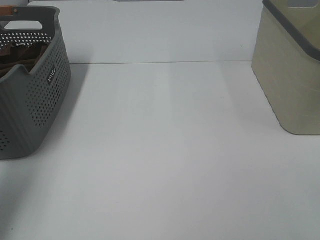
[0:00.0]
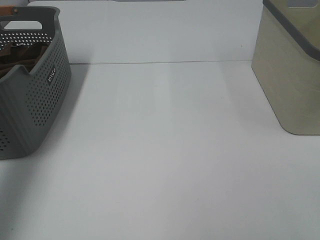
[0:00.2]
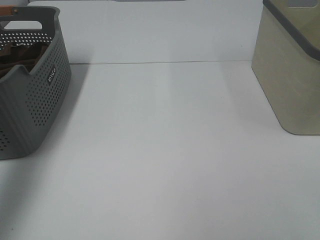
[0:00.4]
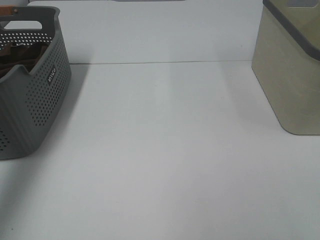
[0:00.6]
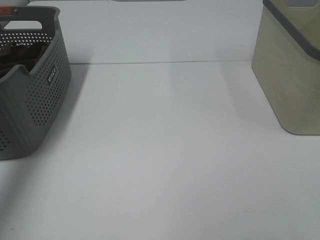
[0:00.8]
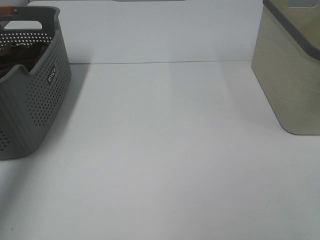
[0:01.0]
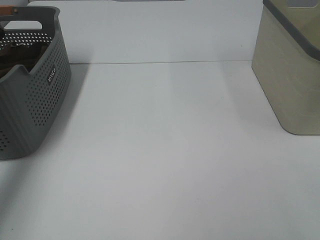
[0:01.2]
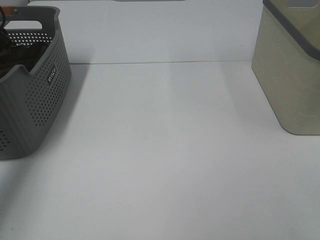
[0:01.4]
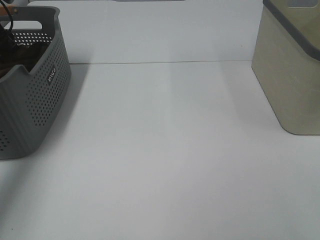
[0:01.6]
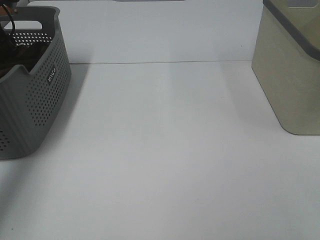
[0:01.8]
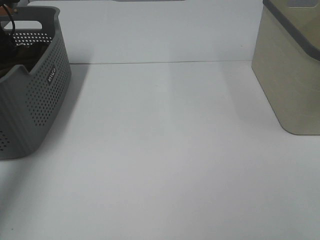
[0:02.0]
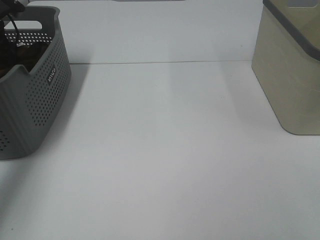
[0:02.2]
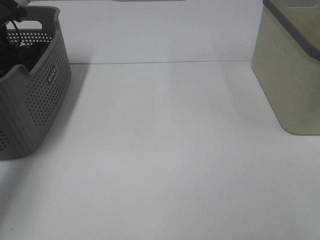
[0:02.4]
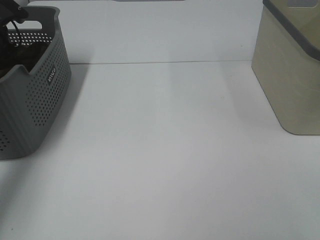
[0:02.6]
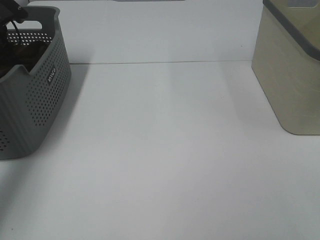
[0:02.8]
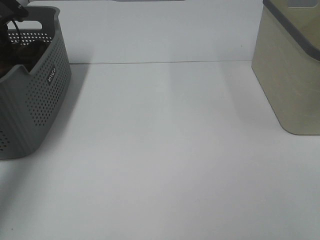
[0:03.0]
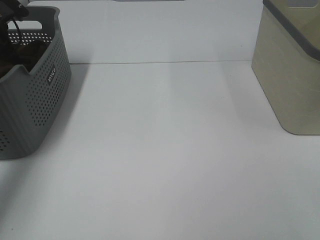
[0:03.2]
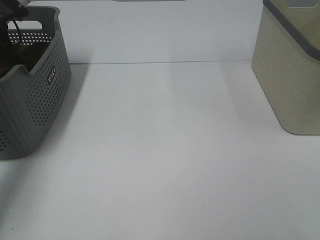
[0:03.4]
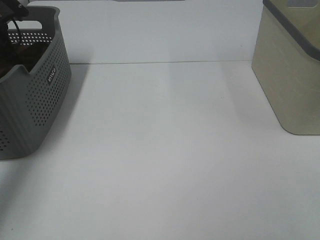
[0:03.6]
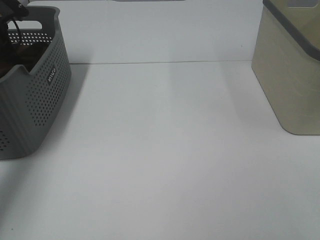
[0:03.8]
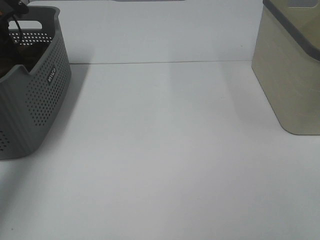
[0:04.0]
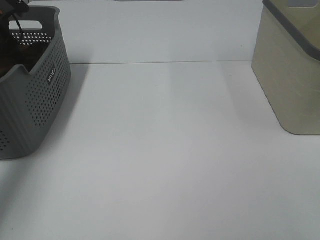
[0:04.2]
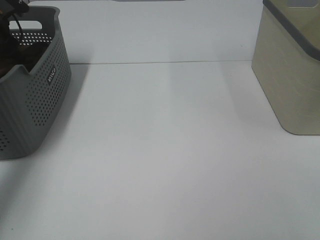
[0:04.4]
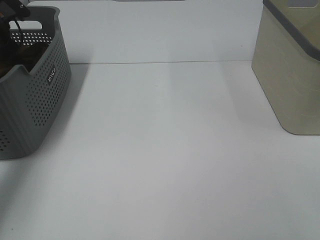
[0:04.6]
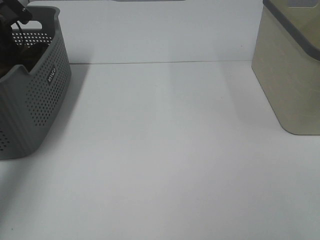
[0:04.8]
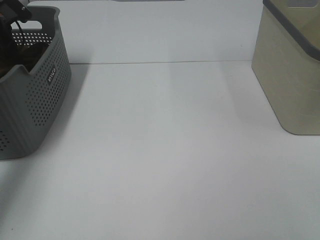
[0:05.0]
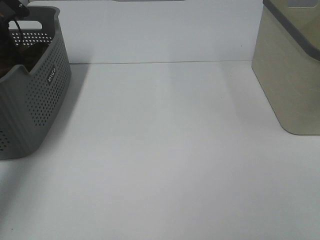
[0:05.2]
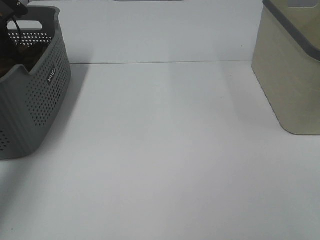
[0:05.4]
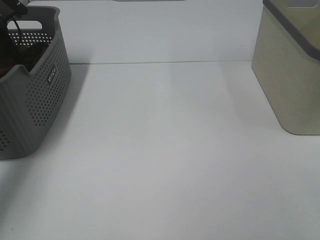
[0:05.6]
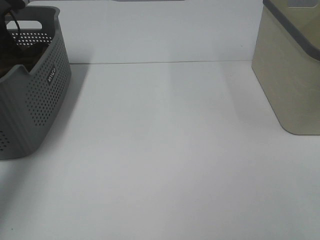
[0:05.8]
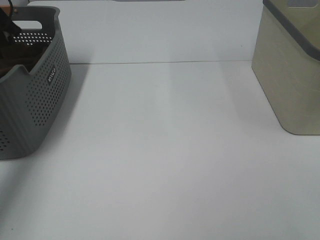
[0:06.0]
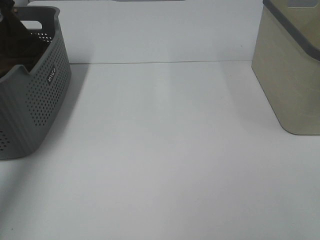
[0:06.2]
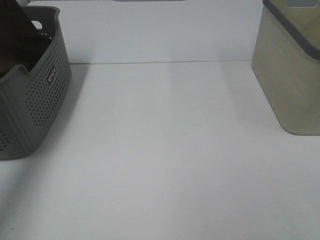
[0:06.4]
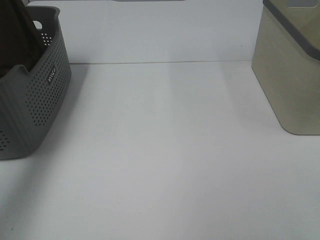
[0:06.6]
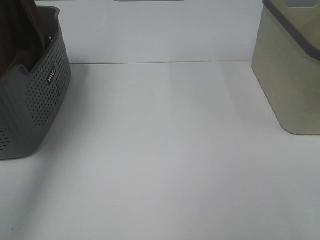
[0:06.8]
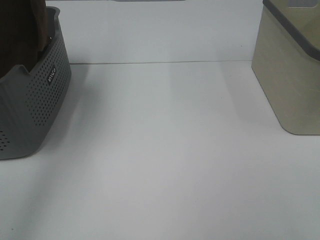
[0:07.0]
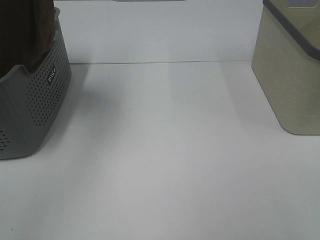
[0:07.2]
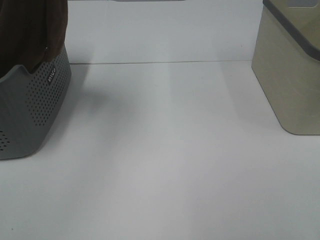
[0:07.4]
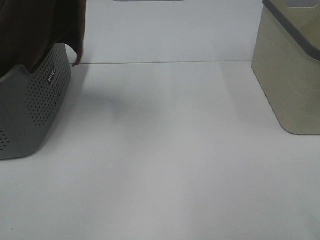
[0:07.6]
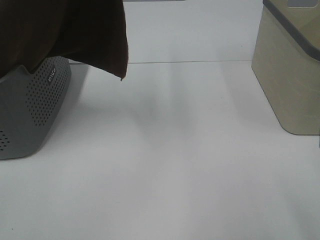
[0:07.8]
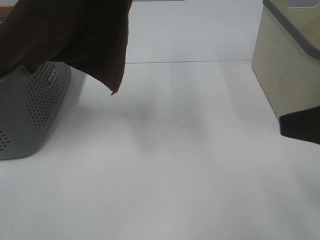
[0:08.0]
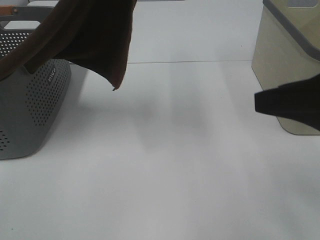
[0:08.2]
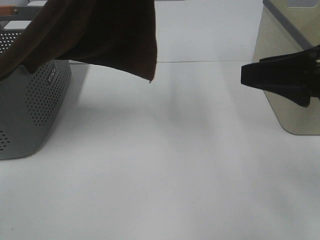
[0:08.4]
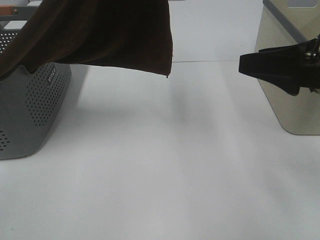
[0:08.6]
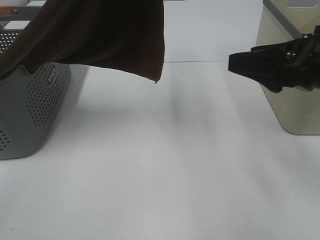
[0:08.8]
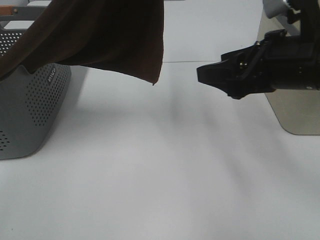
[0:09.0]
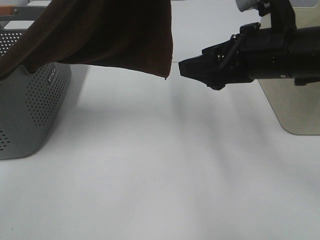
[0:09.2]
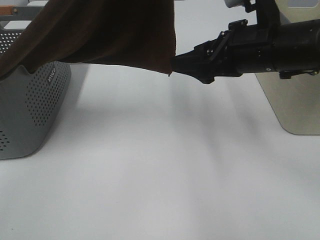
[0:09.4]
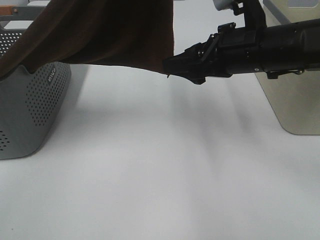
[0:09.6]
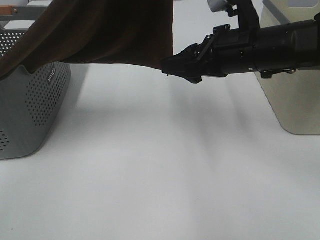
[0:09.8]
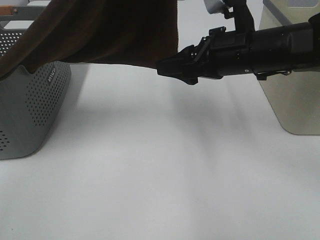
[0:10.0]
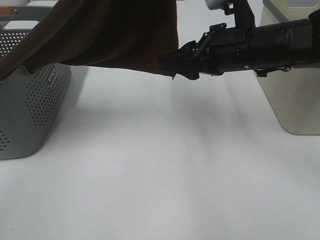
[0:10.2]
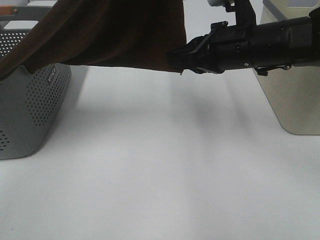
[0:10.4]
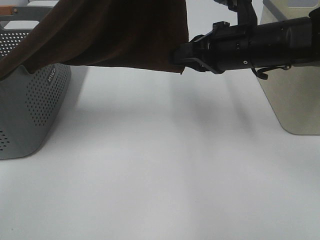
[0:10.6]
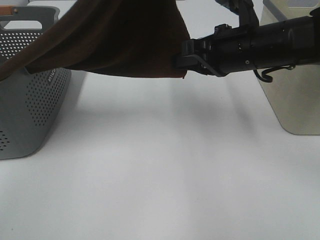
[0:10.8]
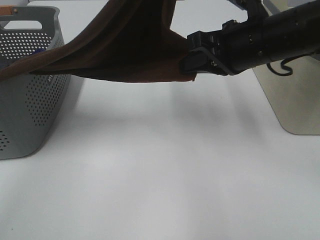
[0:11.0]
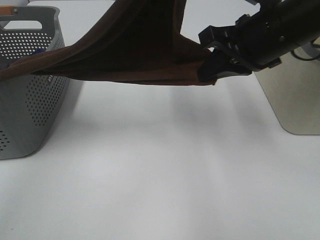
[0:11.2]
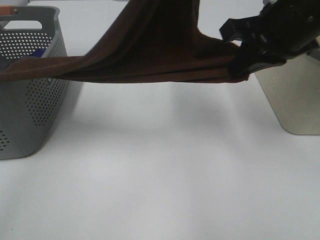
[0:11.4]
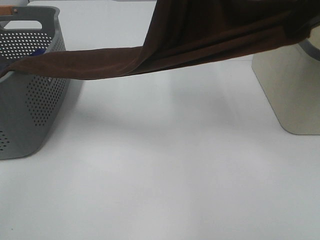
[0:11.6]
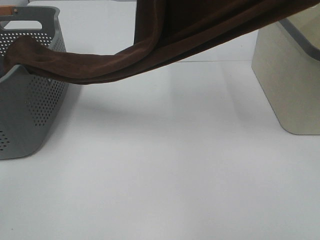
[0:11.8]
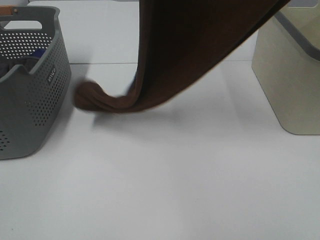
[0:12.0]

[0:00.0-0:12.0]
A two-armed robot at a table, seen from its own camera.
Task of the whole recording: Remove the towel and place it.
Step, 0:05.8 to 0:09.0: Right hand: grab a corner of the brown towel and straighten it.
0:00.0 to 0:01.6: The left gripper shifts some 30 cm forward.
0:03.0 to 0:04.4: Both grippers stay about where they are.
0:06.0 to 0:07.6: The left gripper shifts roughly 35 cm upward, to the right and backward.
0:07.6 to 0:09.0: The left gripper is displaced to the right by about 10 cm, while the right gripper is displaced forward and to the left by some 25 cm.
0:09.0 to 0:10.4: The right gripper is displaced forward by approximately 5 cm, and closes up.
0:10.4 to 0:12.0: The left gripper heads upward, covering approximately 5 cm. The right gripper travels upward by some 25 cm.

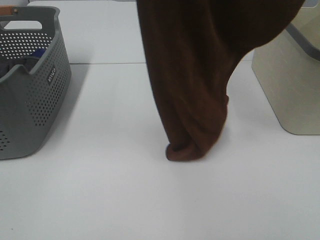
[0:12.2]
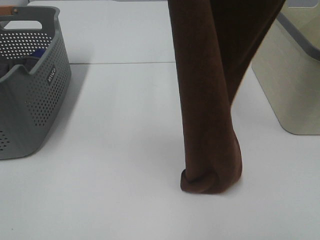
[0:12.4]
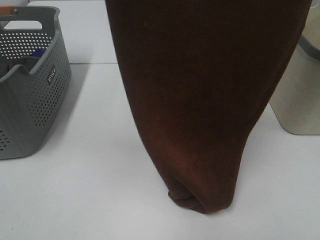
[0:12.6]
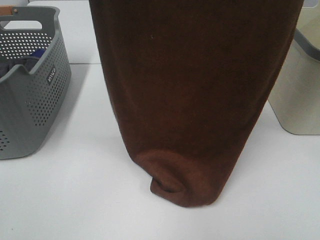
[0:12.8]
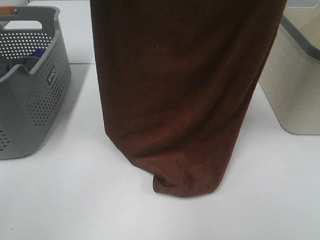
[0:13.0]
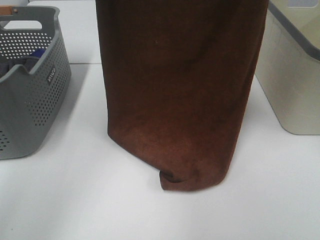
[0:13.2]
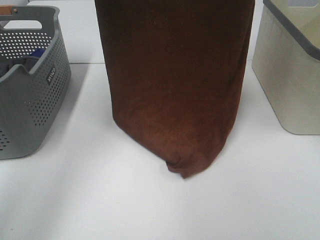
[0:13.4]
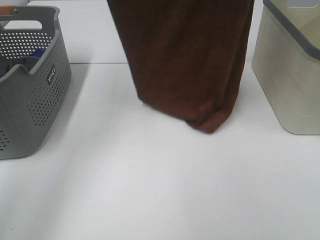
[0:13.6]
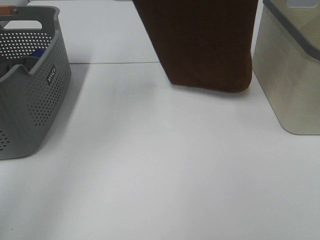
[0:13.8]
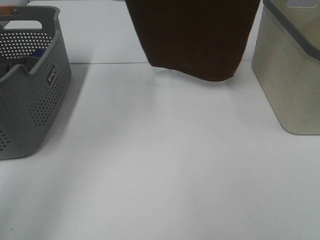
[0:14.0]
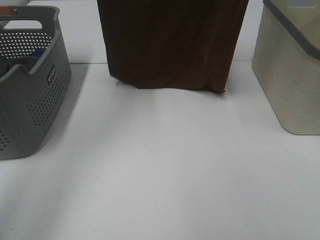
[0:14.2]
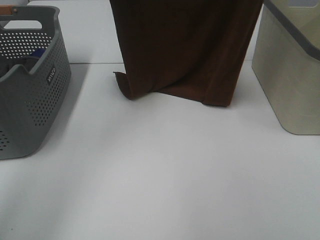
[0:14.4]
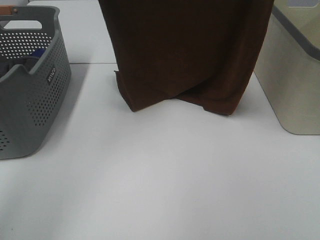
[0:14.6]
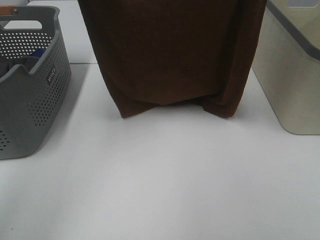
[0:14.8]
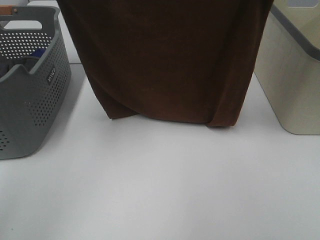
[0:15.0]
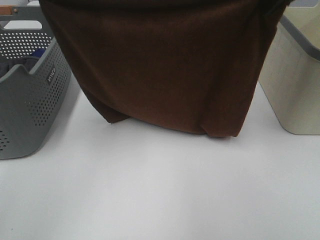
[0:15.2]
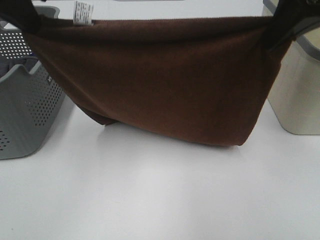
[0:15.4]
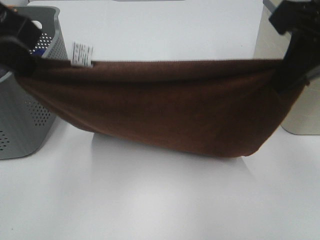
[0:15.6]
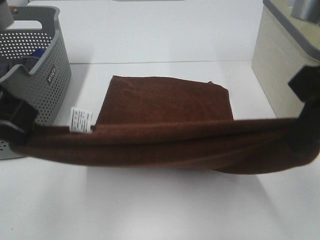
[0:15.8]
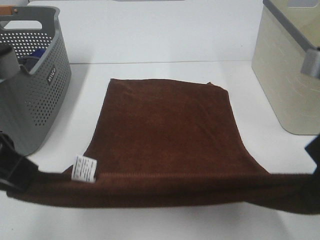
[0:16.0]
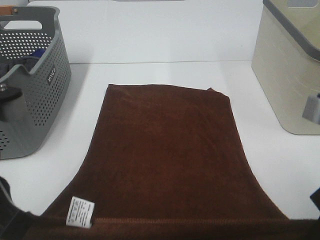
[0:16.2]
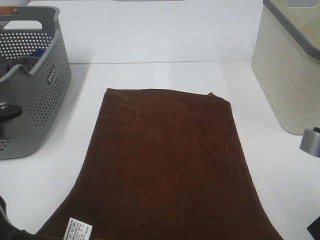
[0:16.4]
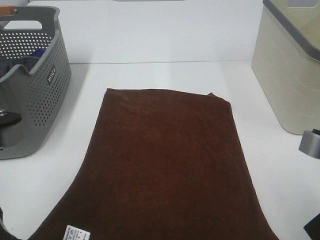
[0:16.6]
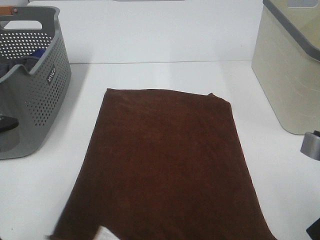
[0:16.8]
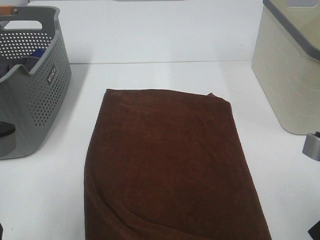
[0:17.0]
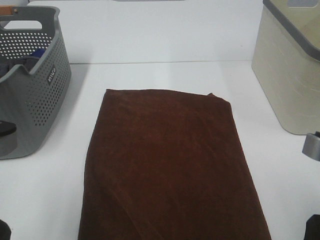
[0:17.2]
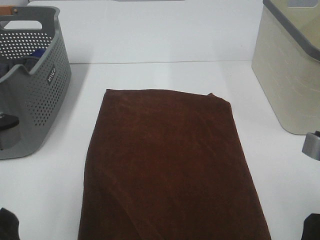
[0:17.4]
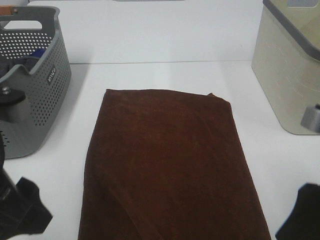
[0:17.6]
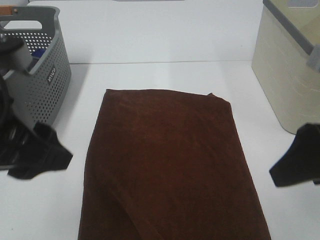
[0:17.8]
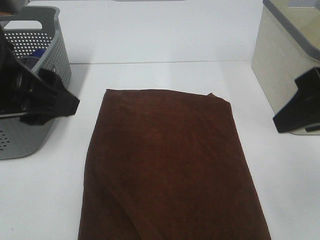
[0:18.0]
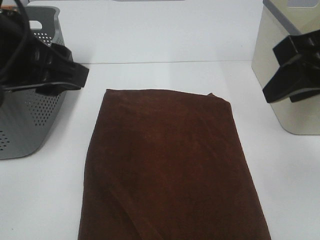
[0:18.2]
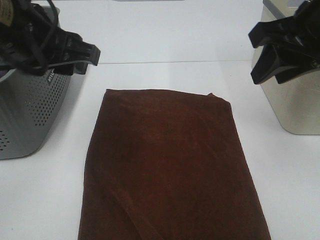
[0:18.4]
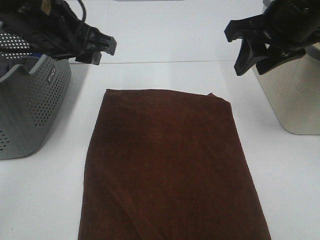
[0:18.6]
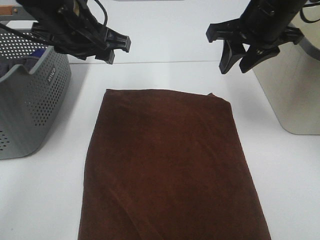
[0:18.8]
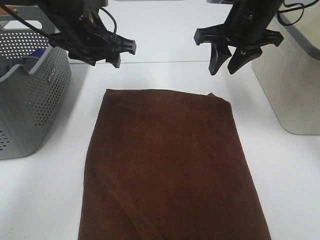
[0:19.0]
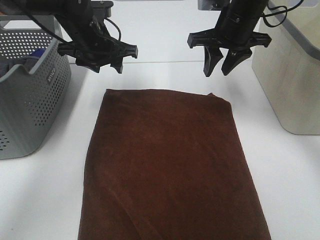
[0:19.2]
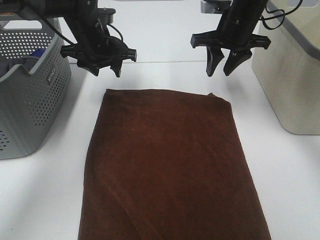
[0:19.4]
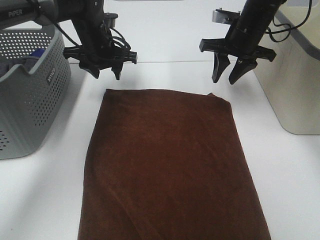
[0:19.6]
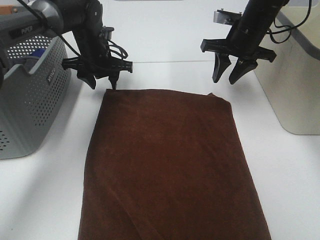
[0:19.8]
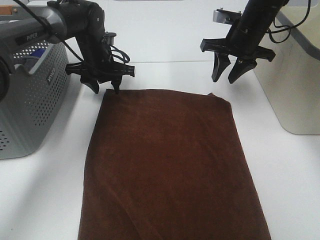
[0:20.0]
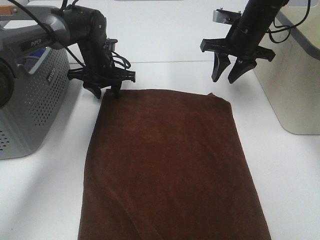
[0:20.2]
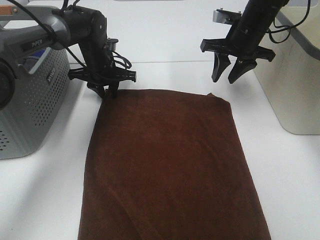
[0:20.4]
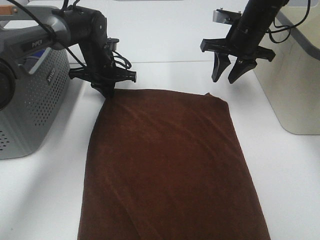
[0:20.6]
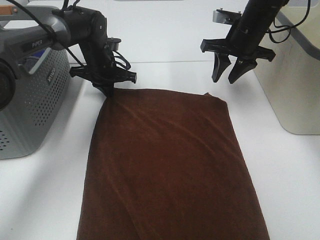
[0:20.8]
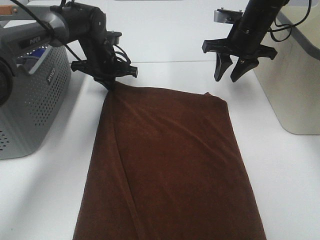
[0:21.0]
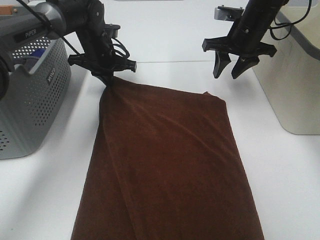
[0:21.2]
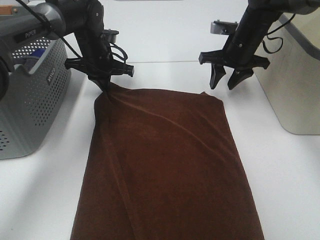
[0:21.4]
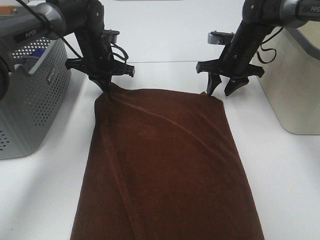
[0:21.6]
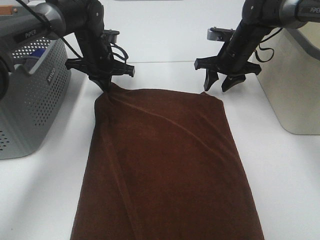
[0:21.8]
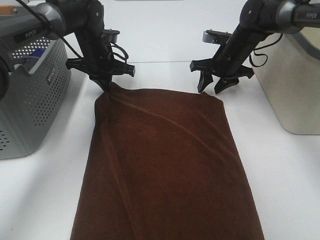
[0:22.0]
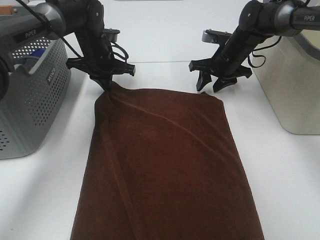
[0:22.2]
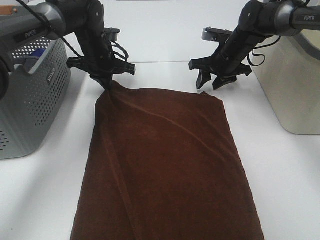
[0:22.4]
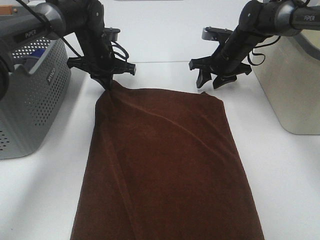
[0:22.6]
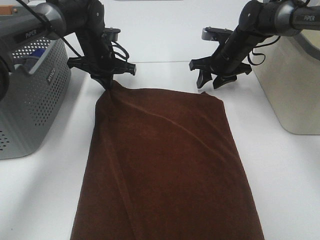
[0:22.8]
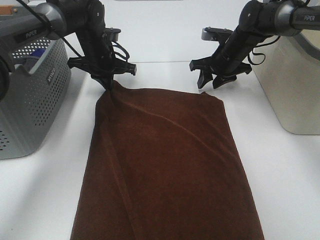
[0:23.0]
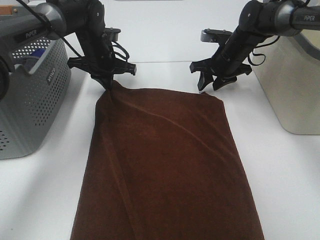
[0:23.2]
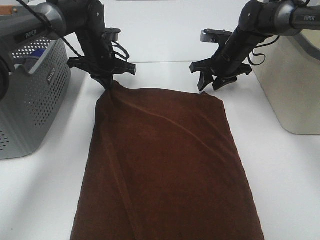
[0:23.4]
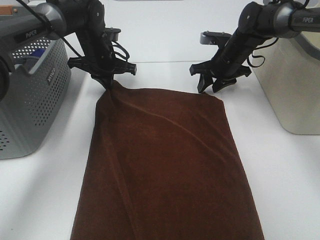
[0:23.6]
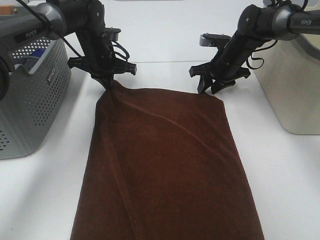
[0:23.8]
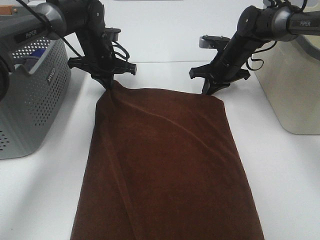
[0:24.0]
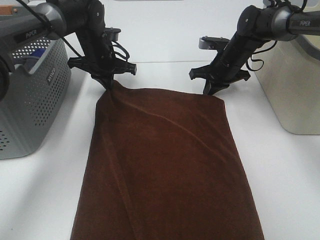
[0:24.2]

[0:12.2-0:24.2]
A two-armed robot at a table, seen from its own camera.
Task of the whole recording: Remove the towel and place it.
Step, 0:12.8 to 0:23.0: Left hand:adjust the brown towel.
Step, 0:12.8 to 0:23.0: Right hand:adjust the brown towel.
0:12.2 to 0:13.8: Both grippers travel together forward, about 15 cm.
0:13.8 to 0:15.2: The left gripper shifts roughly 15 cm downward and backward. The right gripper goes about 15 cm downward.
0:15.2 to 0:16.6: Both grippers travel together backward and downward, some 25 cm.
0:16.6 to 0:18.2: Both grippers move forward and upward, some 15 cm. The right gripper opens; the left gripper opens its fingers.
0:18.2 to 0:19.8: Both grippers travel together forward and downward, approximately 30 cm.
0:19.8 to 0:21.2: The left gripper closes.
0:21.2 to 0:22.6: The right gripper is displaced downward by some 5 cm.
0:22.6 to 0:24.2: The right gripper closes its fingers.
